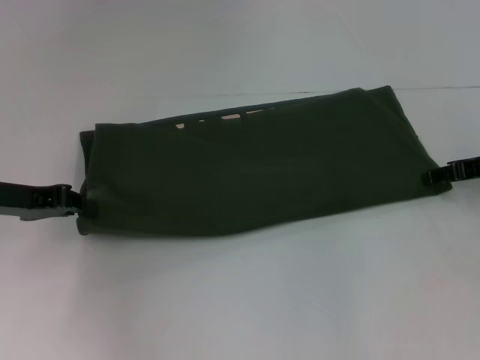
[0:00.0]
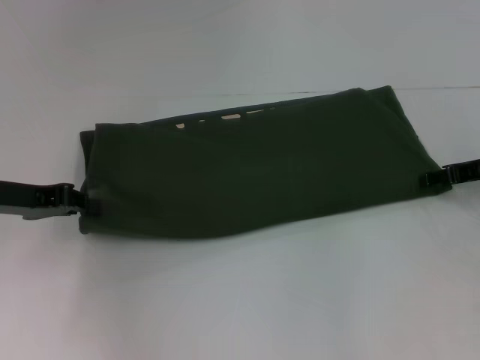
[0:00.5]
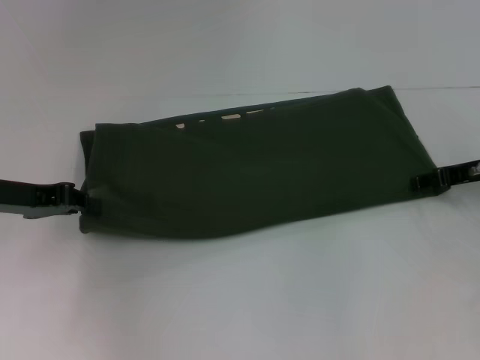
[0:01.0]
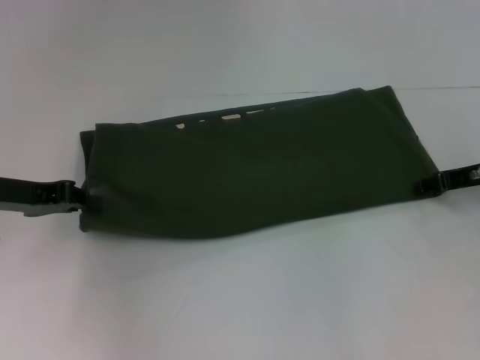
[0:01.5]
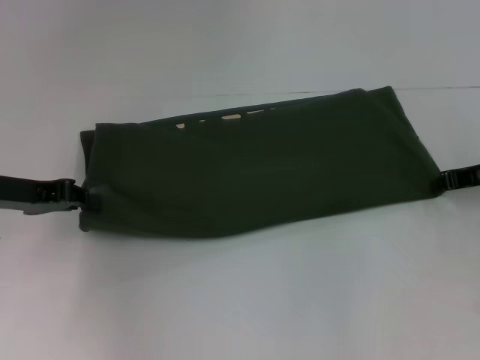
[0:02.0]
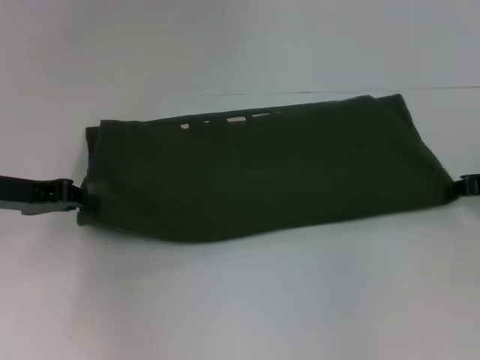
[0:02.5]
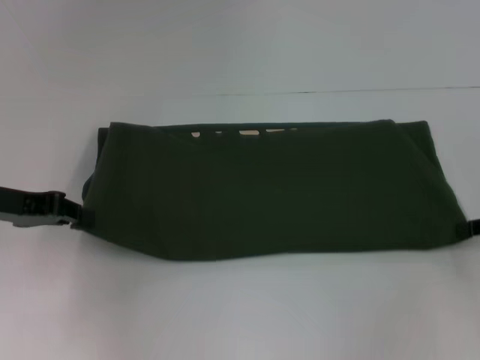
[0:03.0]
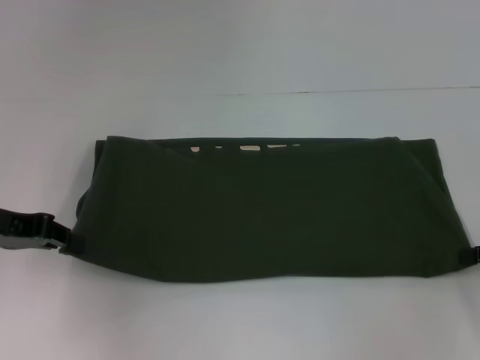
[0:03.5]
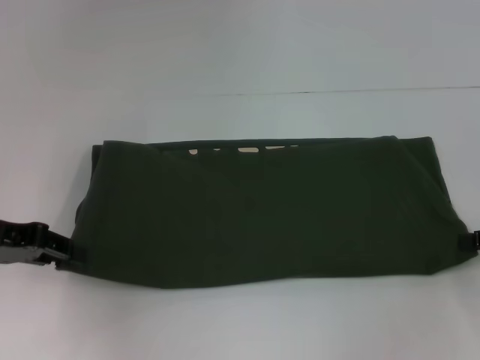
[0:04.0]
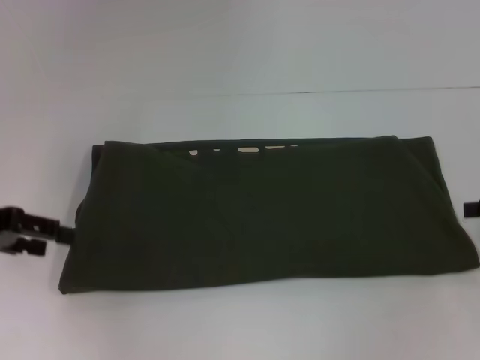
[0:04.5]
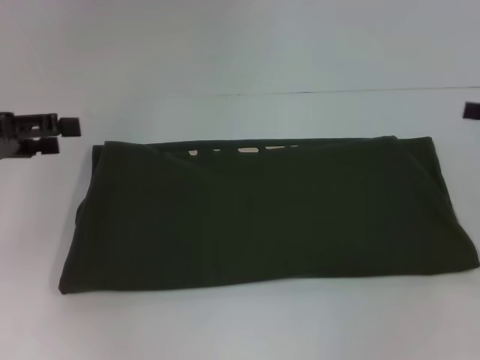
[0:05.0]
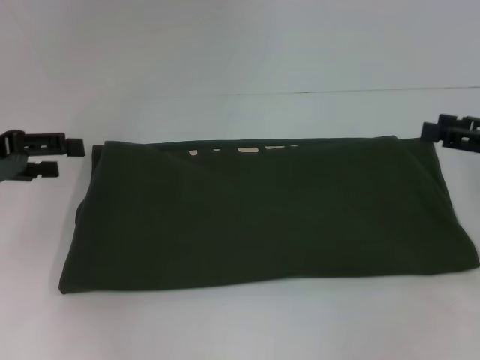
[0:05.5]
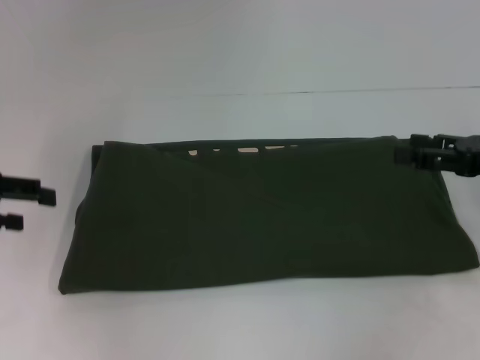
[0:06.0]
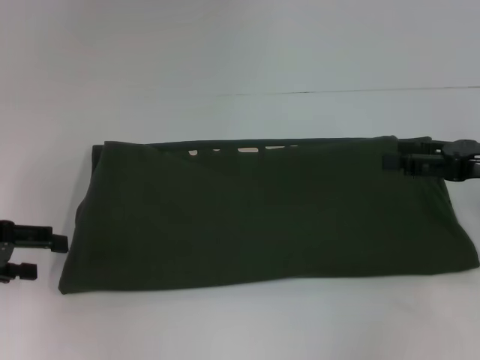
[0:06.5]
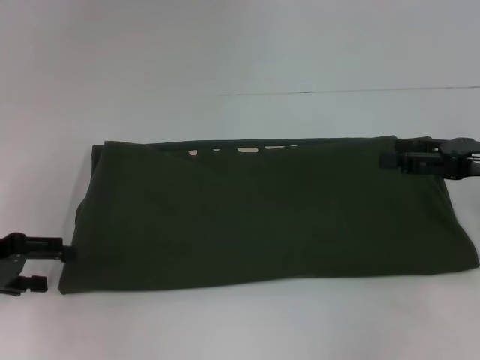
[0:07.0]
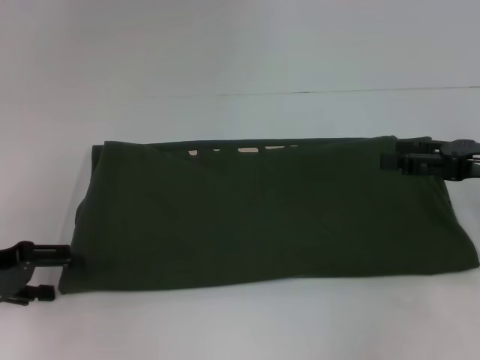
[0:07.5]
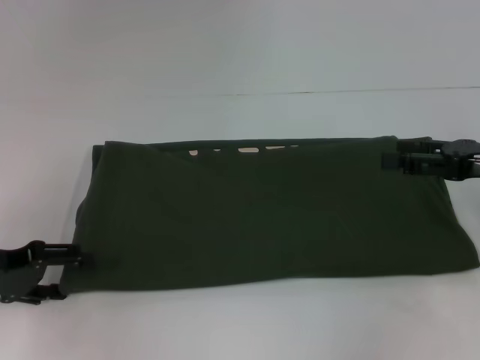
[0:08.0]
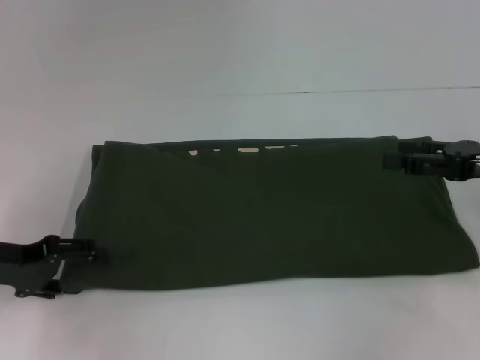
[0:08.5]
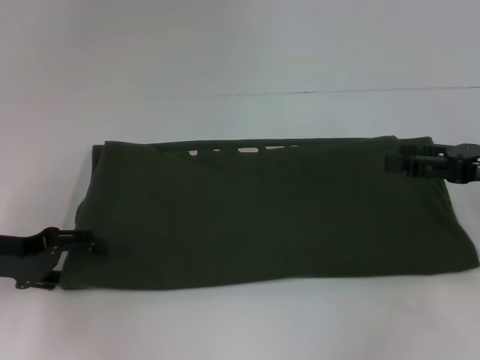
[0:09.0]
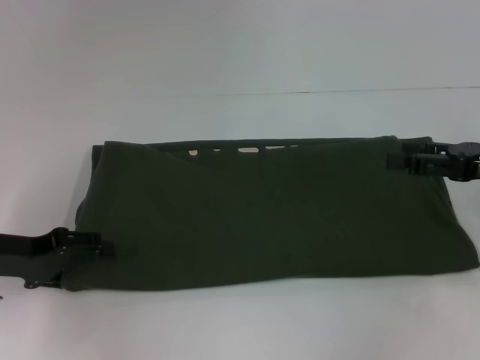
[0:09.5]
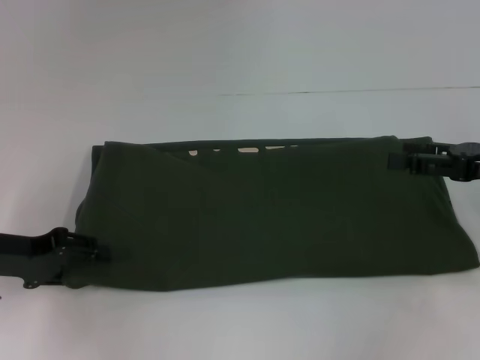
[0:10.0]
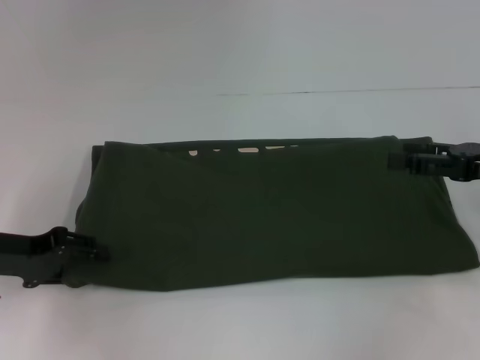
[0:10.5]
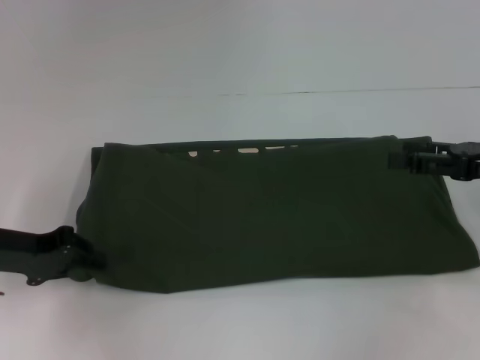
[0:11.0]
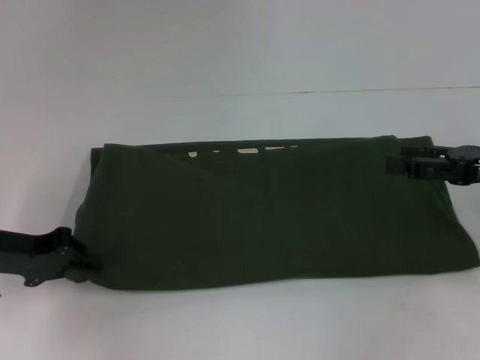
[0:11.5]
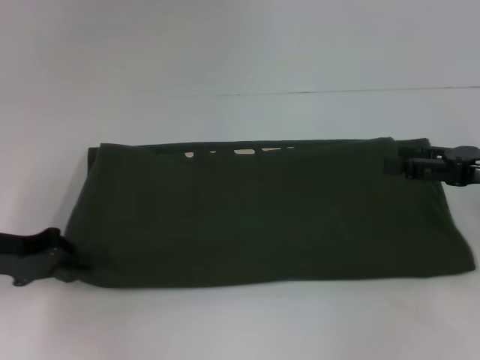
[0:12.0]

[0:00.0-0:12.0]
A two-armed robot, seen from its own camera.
Step, 0:00.0 to 0:04.5: Pull the clothes with your left hand.
Step, 0:00.0 to 0:04.5: Pull the clothes with your right hand.
0:00.0 to 0:02.0: The right gripper closes its fingers.
0:02.0 to 0:04.0: The right gripper is displaced backward and to the right by roughly 10 cm.
0:04.0 to 0:06.0: The right gripper ends up roughly 5 cm from where it was, and opens its fingers; the left gripper changes place by about 5 cm, and opens.
0:06.0 to 0:08.0: The left gripper heads downward, covering some 10 cm.
0:08.0 to 0:10.0: The grippers make only small movements.
0:10.0 to 0:12.0: The left gripper closes.

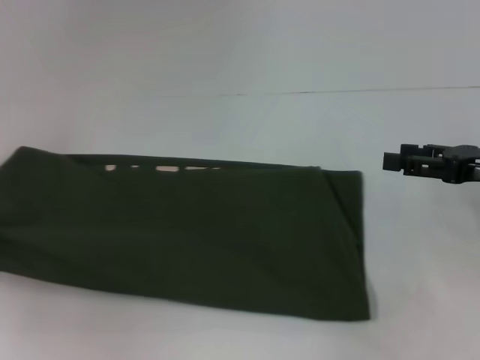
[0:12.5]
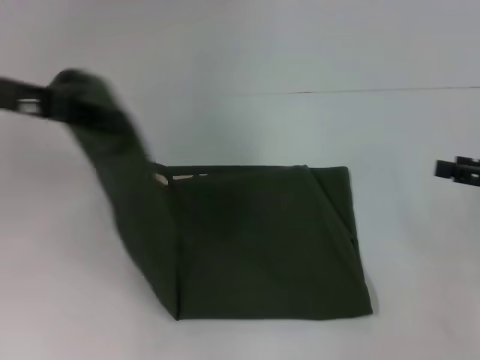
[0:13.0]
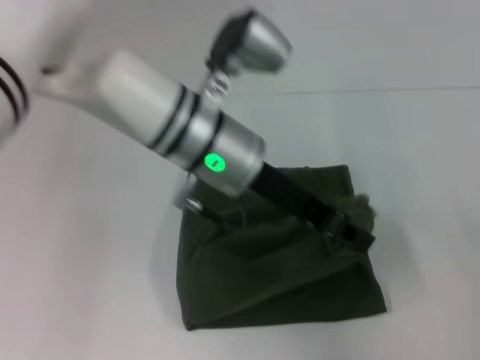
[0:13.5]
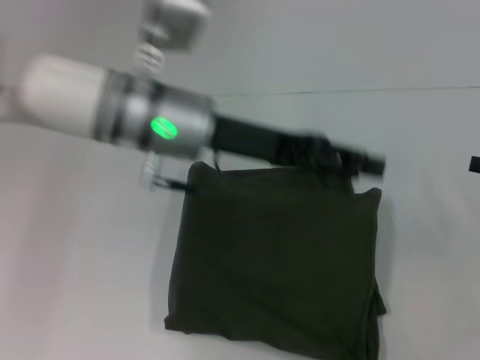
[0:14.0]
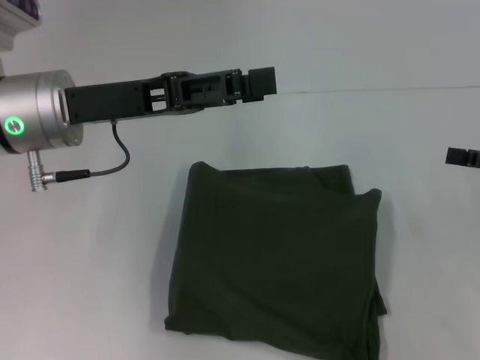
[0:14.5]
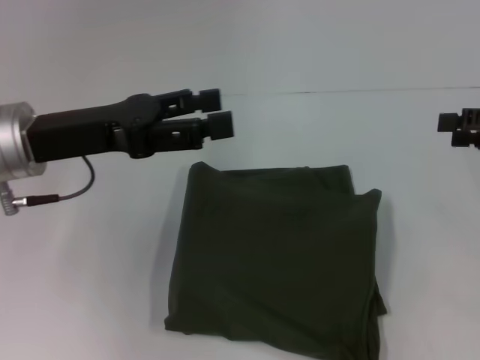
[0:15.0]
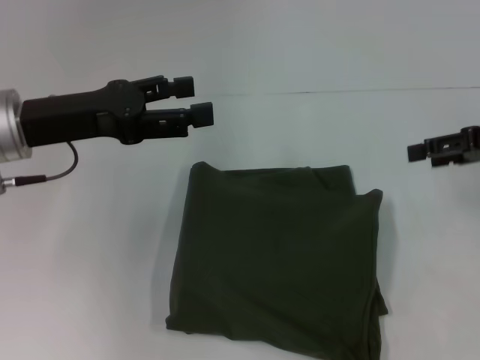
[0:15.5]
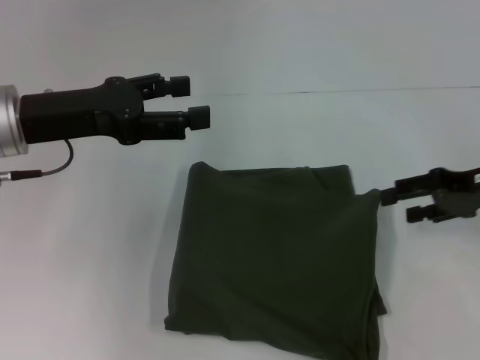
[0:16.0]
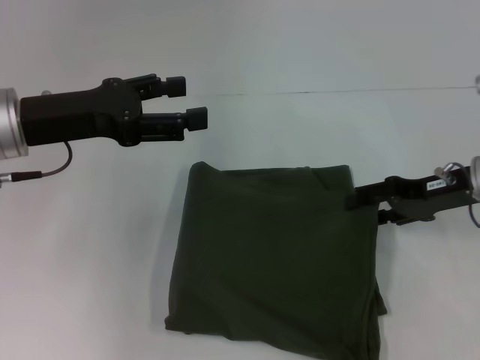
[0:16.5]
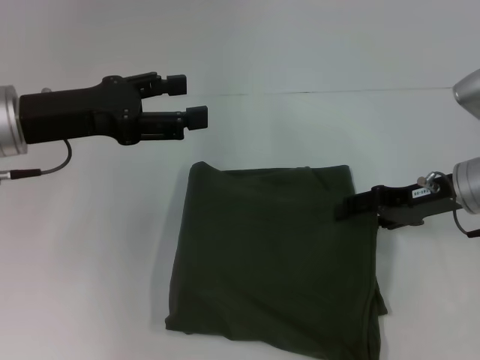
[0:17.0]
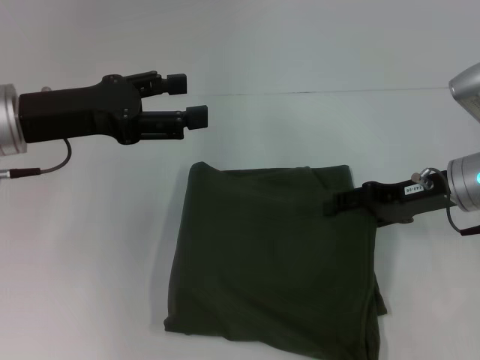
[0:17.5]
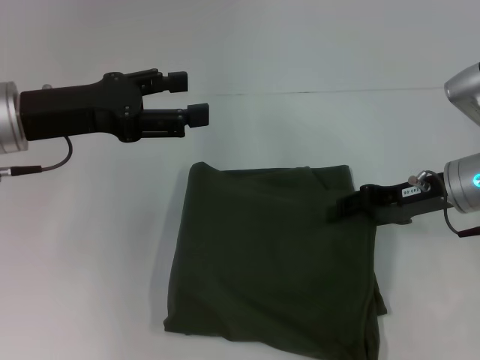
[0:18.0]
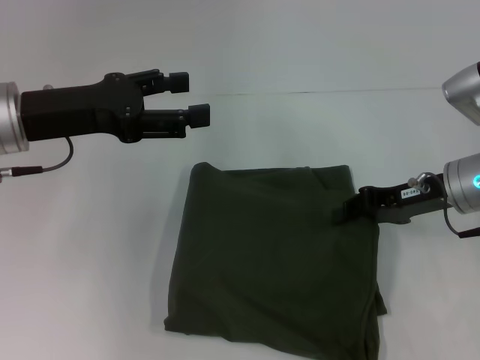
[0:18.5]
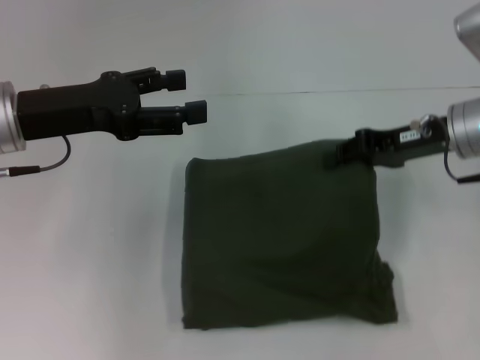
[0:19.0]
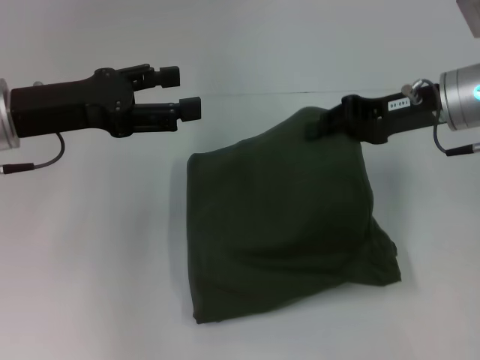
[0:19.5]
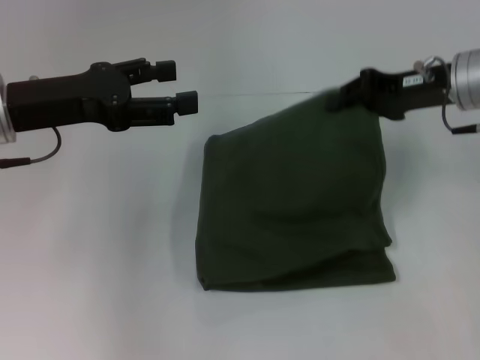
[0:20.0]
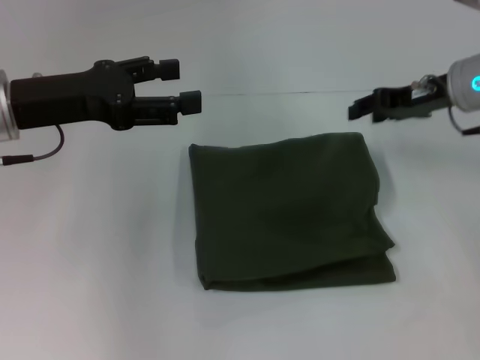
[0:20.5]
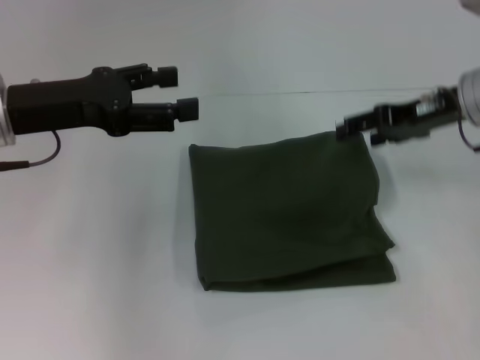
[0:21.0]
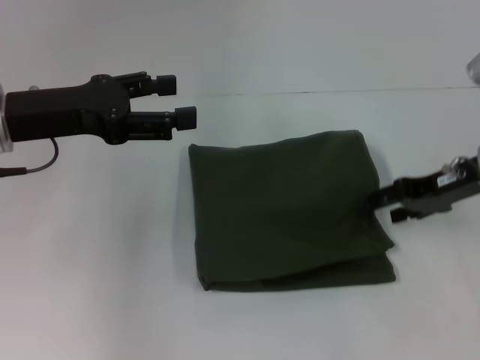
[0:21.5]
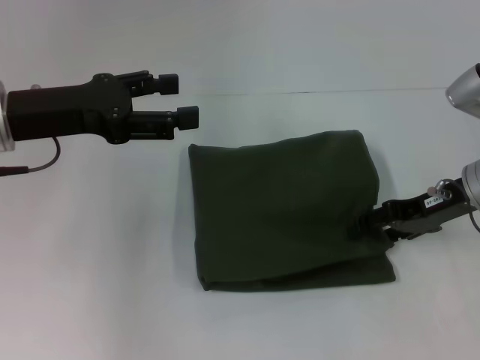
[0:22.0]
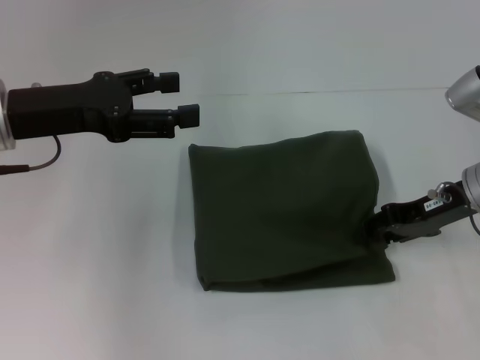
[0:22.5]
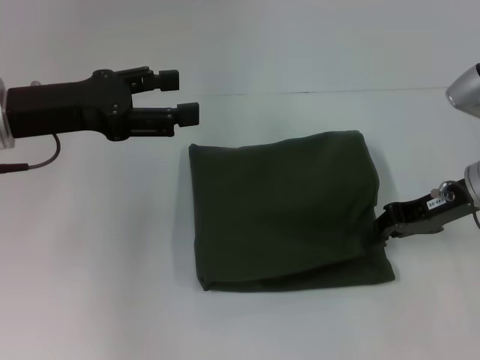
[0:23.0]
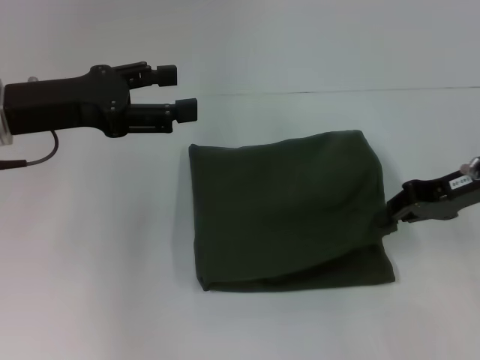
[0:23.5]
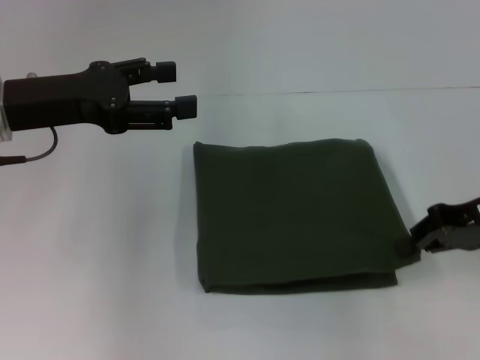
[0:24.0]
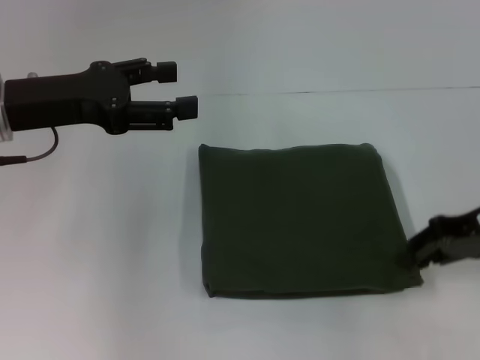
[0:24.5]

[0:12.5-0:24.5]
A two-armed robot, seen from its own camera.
0:12.5 to 0:14.5: The left gripper goes roughly 20 cm to the right, and opens up; the right gripper moves to the right, approximately 5 cm.
0:14.5 to 0:16.5: The right gripper heads to the left and forward, covering approximately 10 cm; the left gripper shifts about 5 cm to the left.
0:16.5 to 0:18.5: The right gripper closes up.
0:18.5 to 0:20.5: The right gripper travels forward and upward by some 10 cm.
0:20.5 to 0:22.5: The right gripper shifts about 10 cm backward and downward.
0:22.5 to 0:24.5: The right gripper changes place by approximately 5 cm, and closes its fingers.

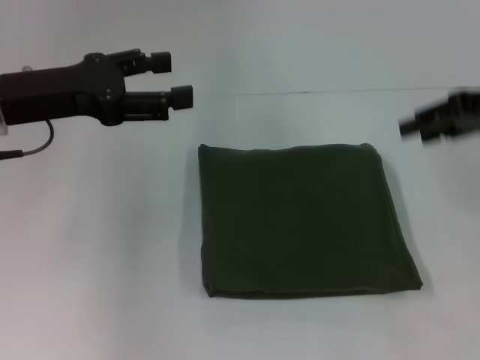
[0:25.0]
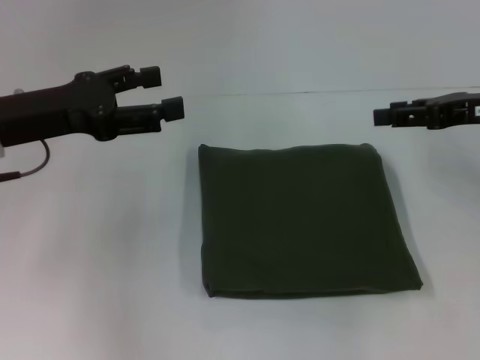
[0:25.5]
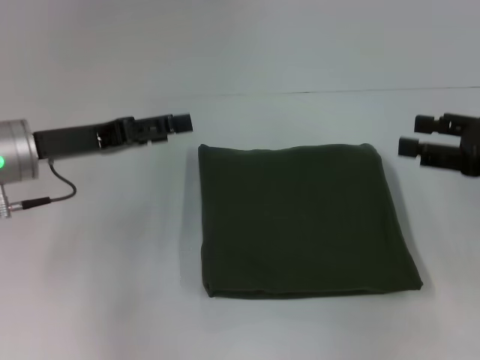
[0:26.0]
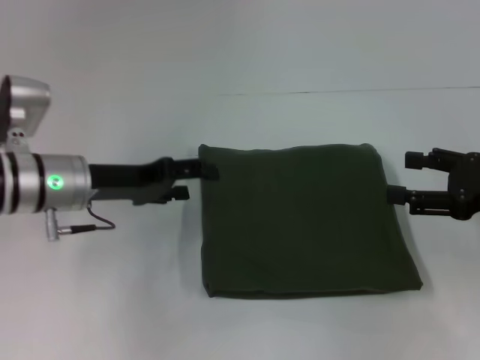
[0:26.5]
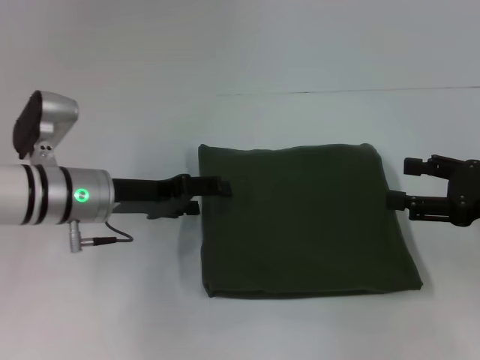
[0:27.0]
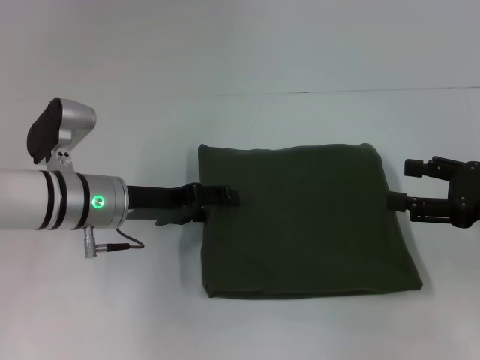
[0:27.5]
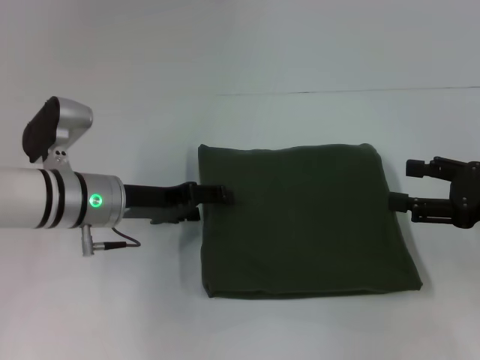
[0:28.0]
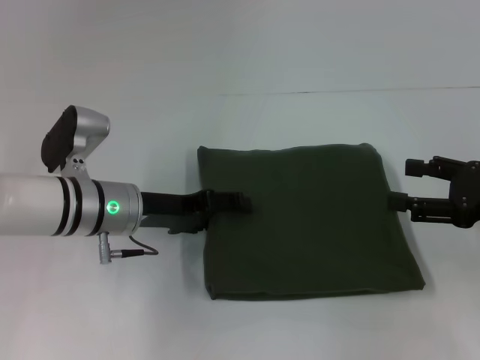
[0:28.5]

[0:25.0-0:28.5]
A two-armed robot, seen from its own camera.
0:25.0 to 0:27.0: The right gripper heads downward and backward, covering approximately 15 cm, and opens its fingers, while the left gripper goes approximately 15 cm downward and to the right.
0:27.0 to 0:28.5: The grippers move only a little.
